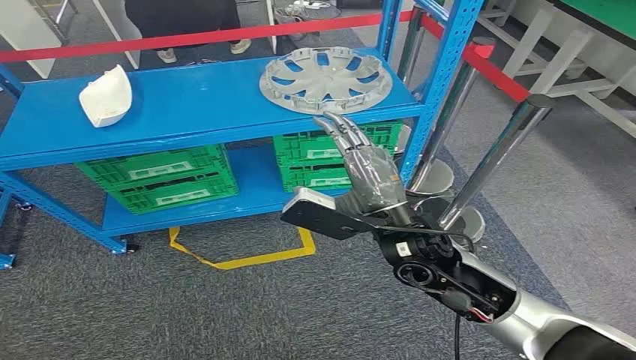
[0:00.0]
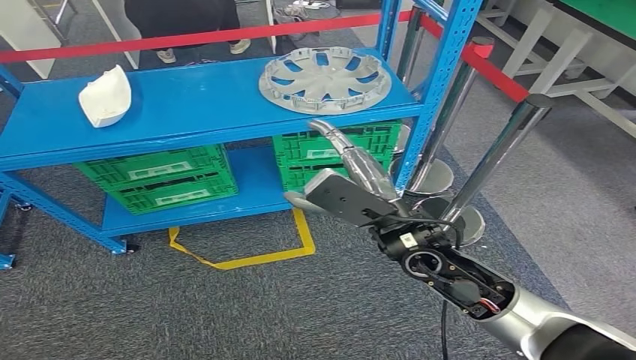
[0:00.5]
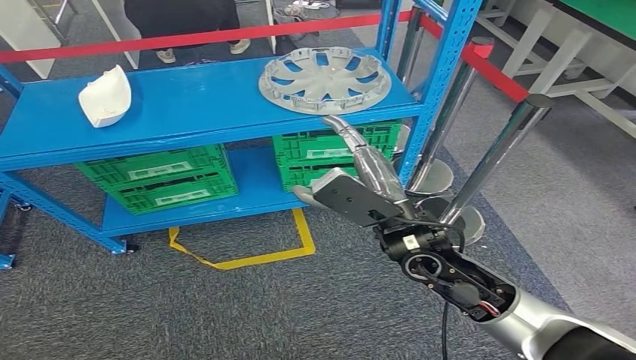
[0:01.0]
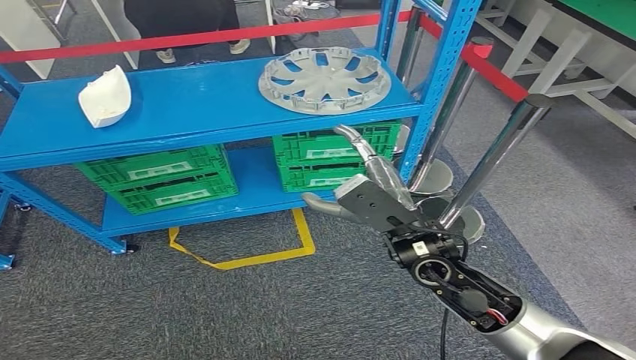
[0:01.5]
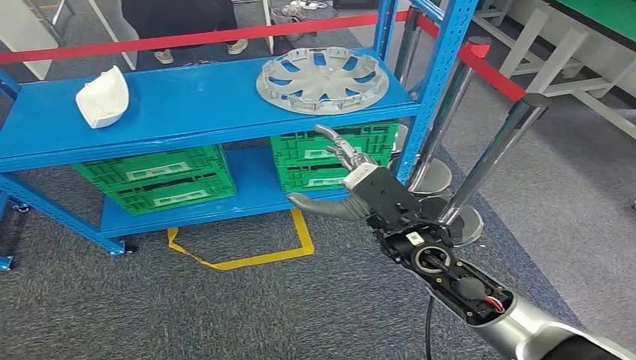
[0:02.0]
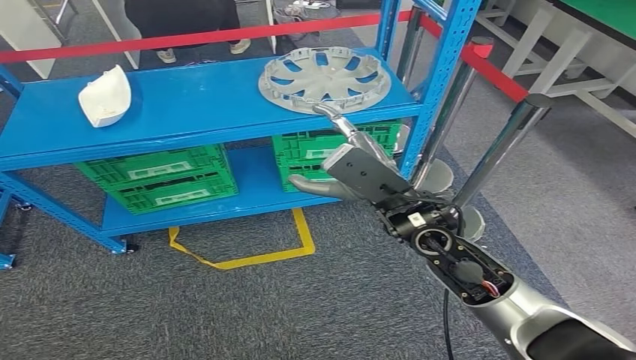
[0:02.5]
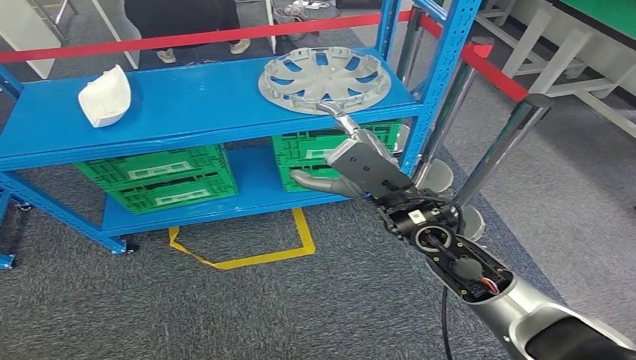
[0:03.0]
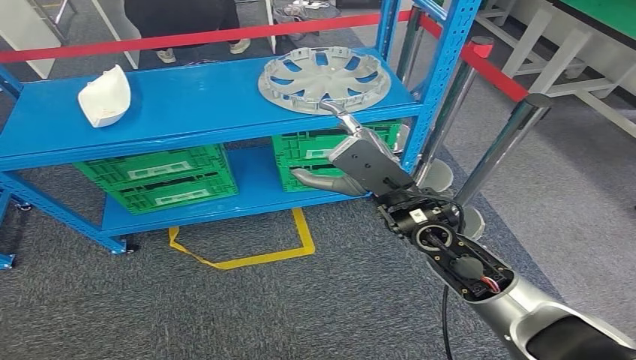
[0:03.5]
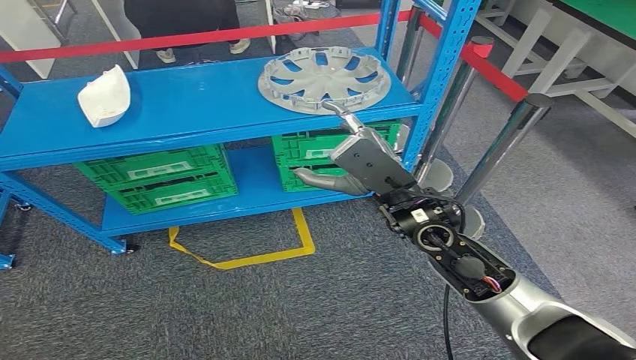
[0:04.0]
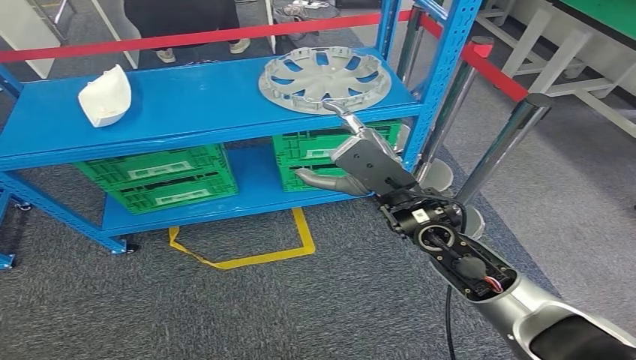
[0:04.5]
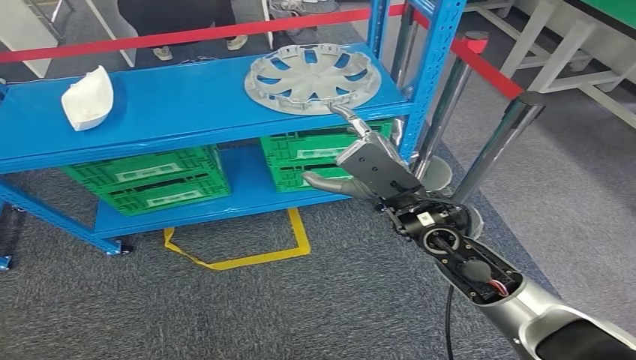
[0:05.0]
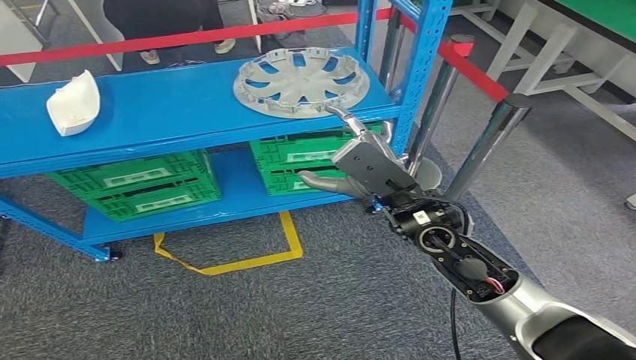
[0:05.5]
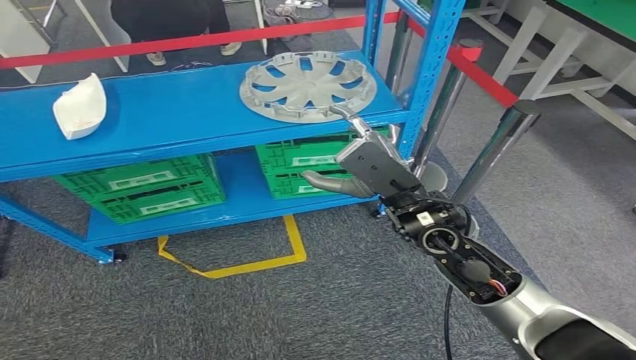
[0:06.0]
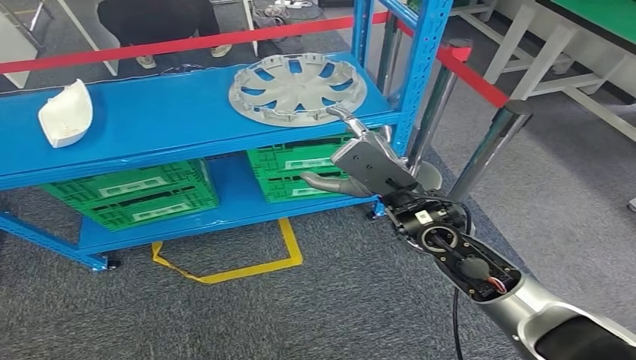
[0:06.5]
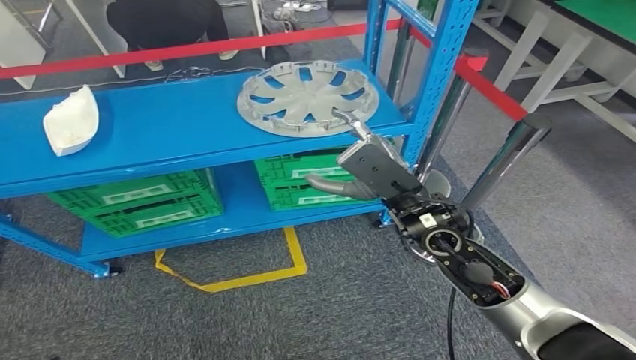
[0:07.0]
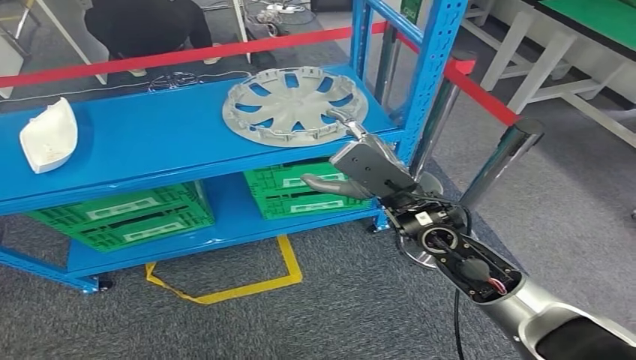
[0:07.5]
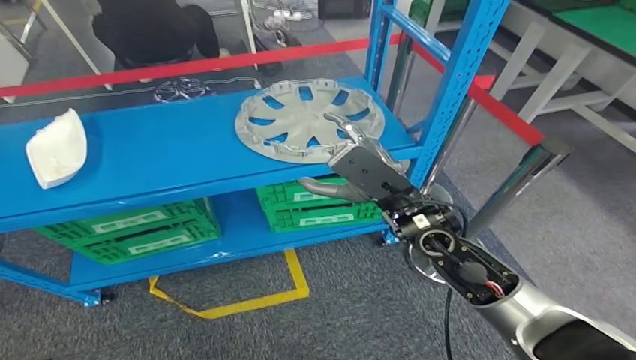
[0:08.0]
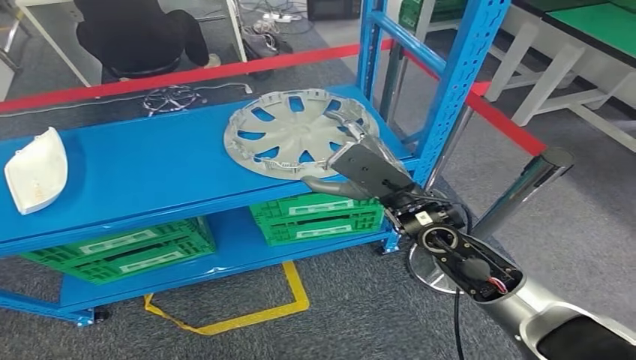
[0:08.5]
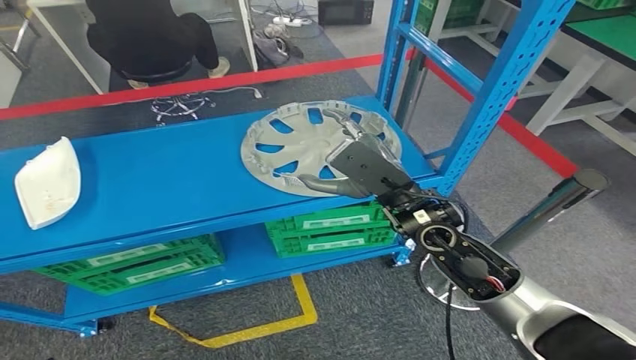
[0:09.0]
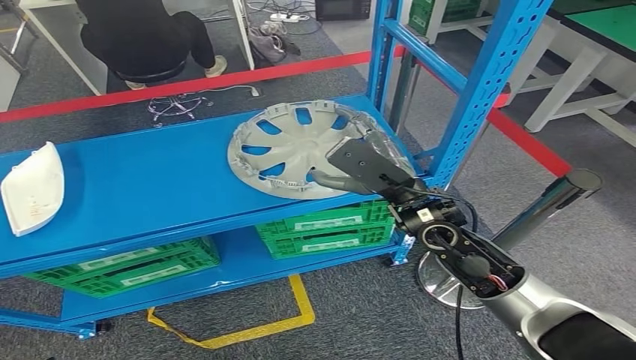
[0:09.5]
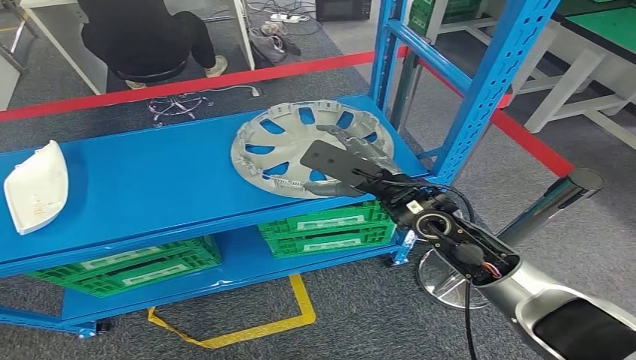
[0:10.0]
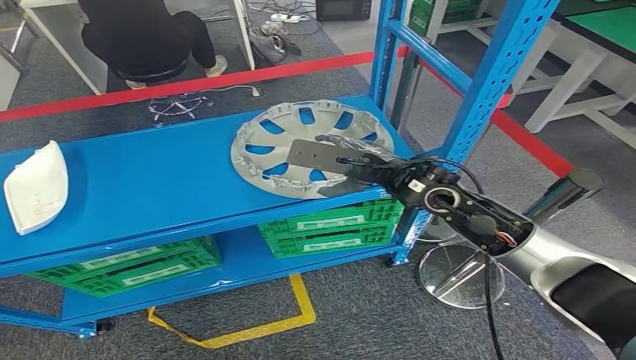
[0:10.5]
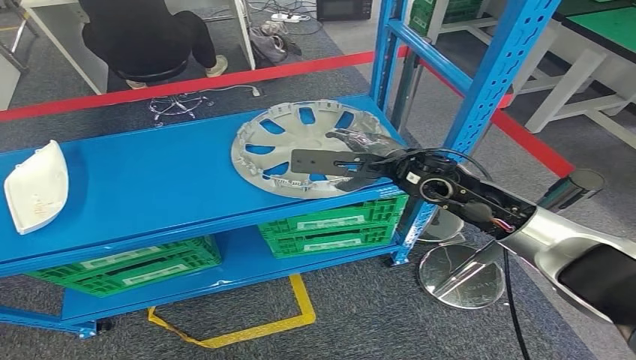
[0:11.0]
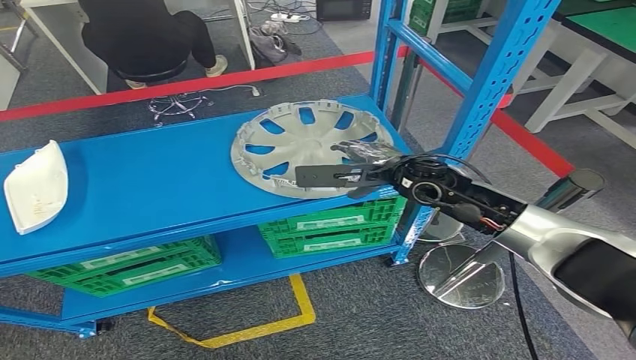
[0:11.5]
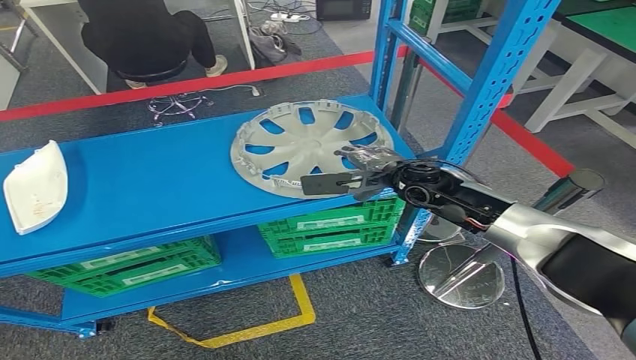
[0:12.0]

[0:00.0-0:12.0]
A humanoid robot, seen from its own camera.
0:02.0 to 0:04.0: The hands move only a little.
0:10.0 to 0:12.0: The right hand moves forward, some 10 cm.

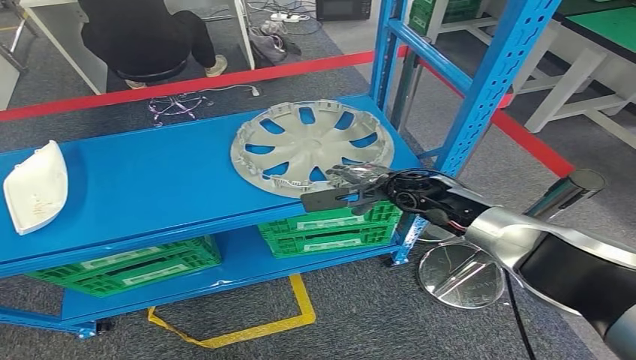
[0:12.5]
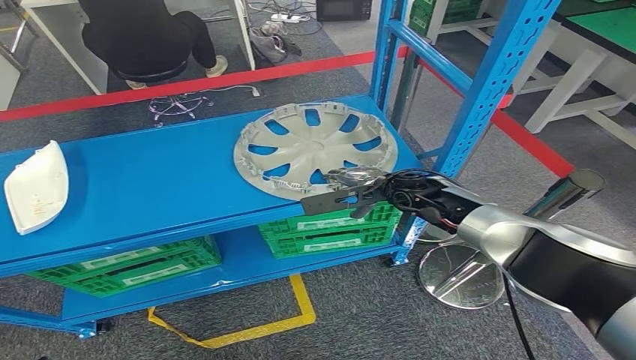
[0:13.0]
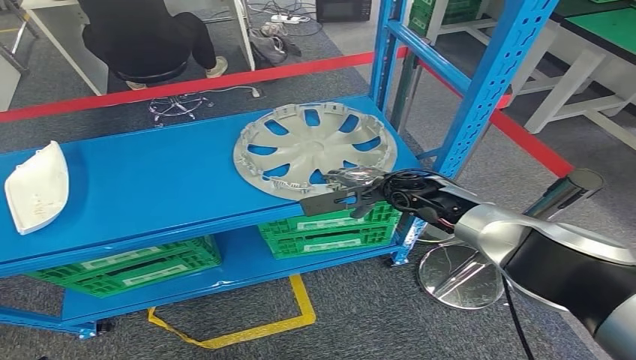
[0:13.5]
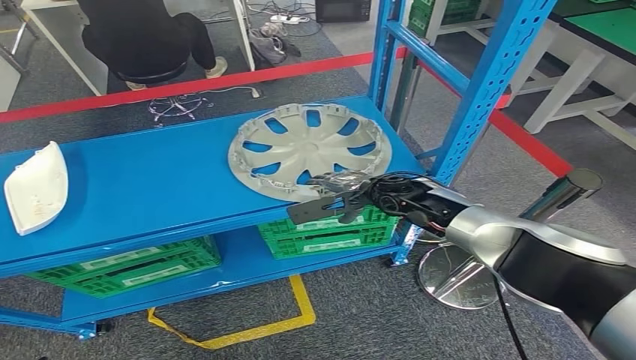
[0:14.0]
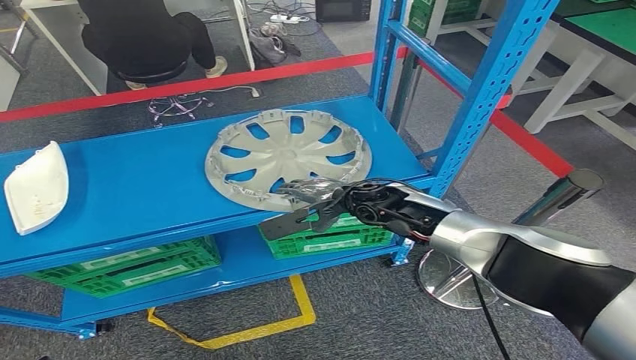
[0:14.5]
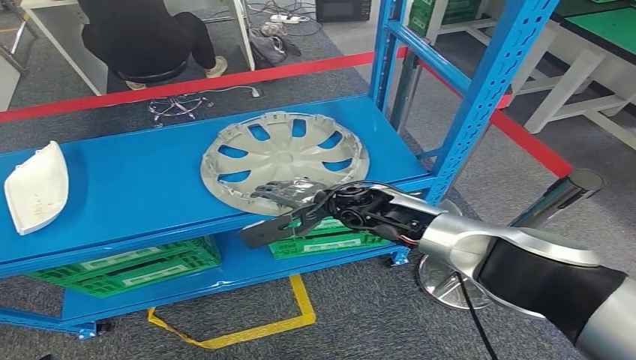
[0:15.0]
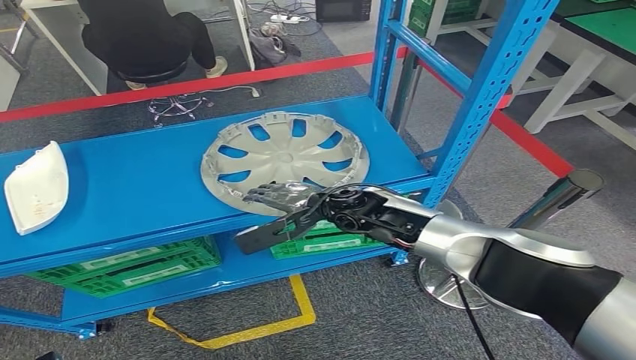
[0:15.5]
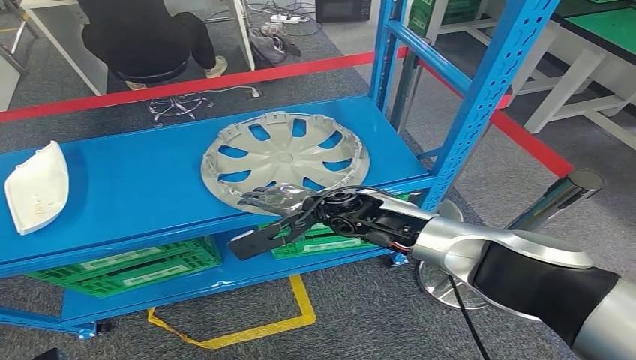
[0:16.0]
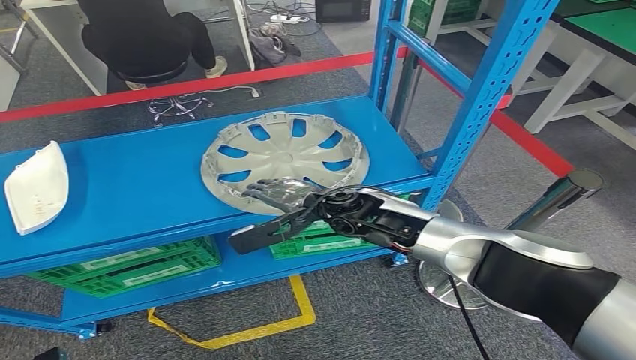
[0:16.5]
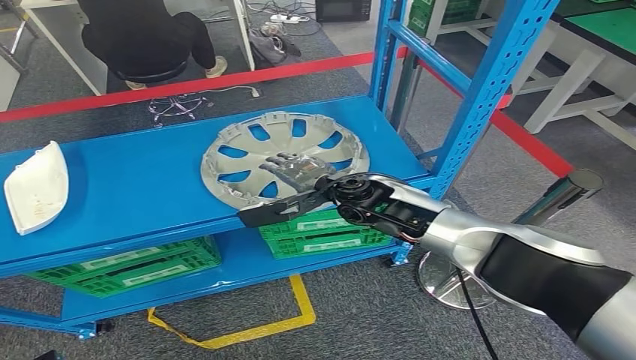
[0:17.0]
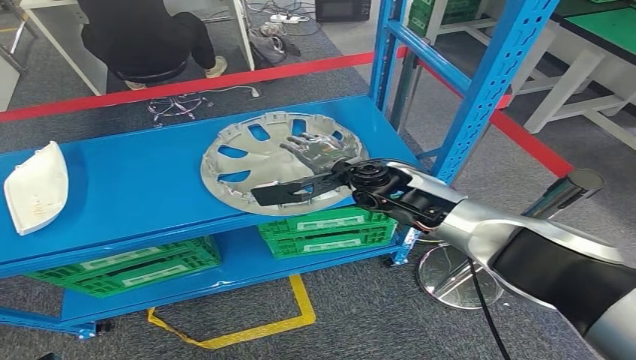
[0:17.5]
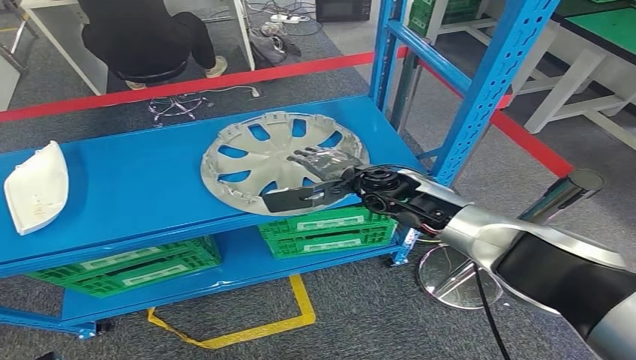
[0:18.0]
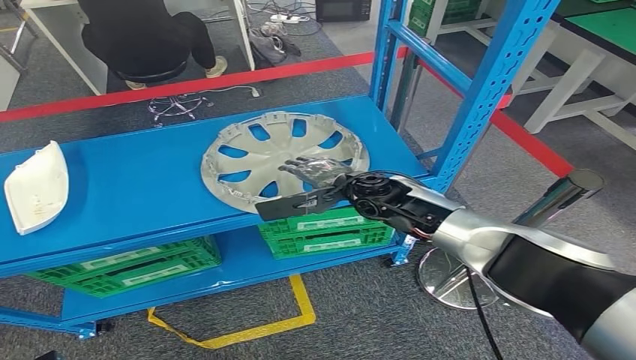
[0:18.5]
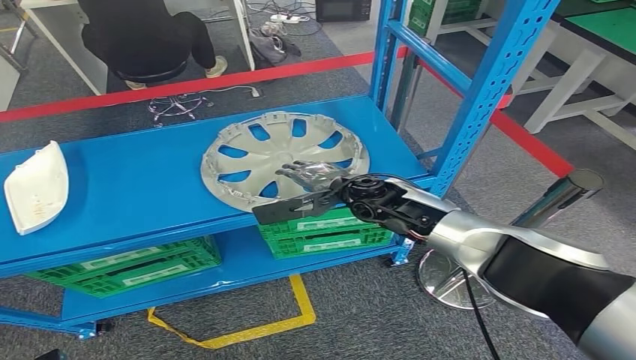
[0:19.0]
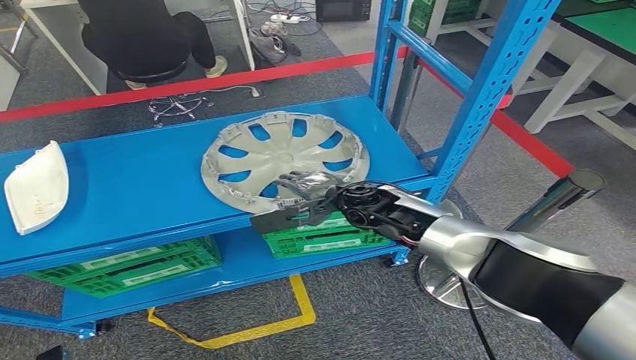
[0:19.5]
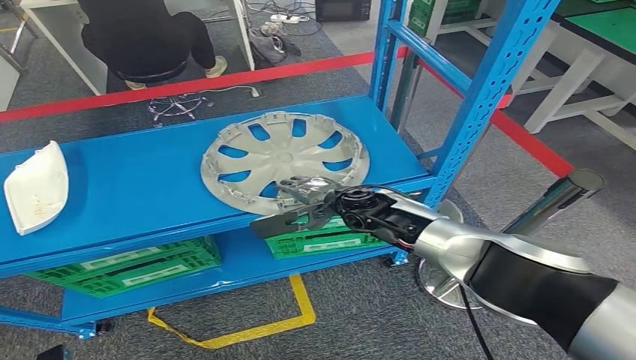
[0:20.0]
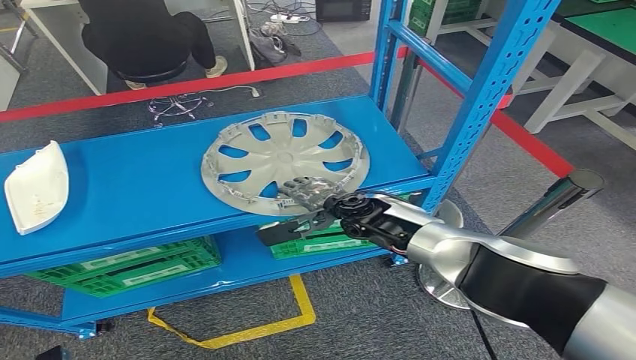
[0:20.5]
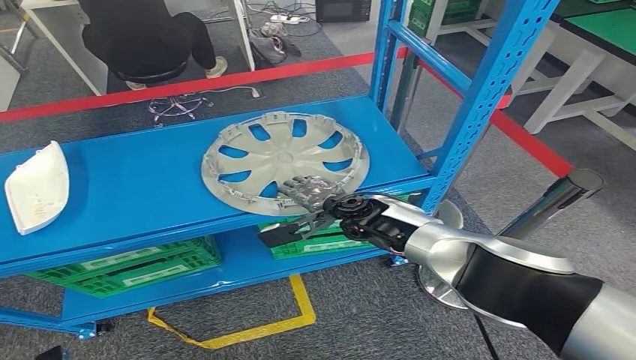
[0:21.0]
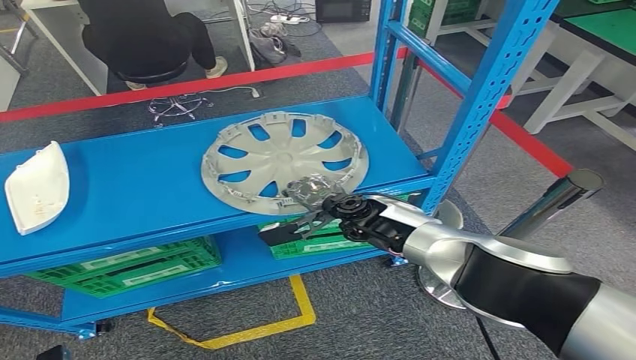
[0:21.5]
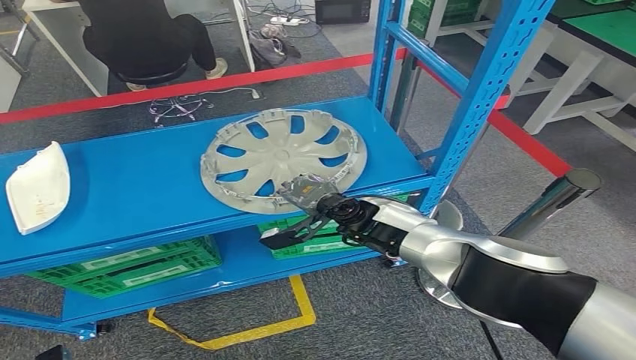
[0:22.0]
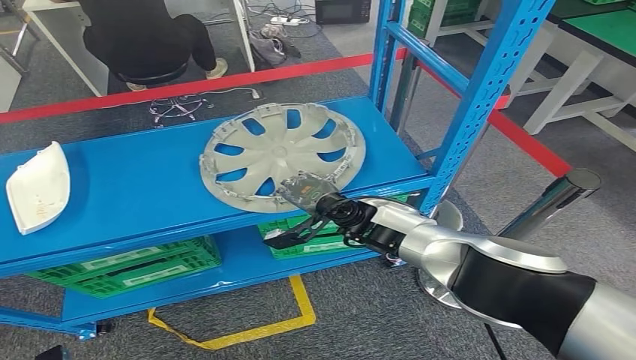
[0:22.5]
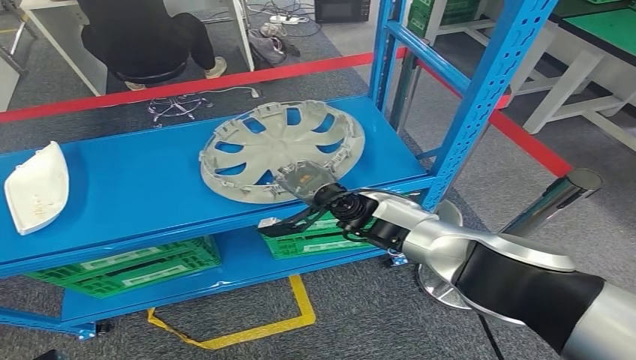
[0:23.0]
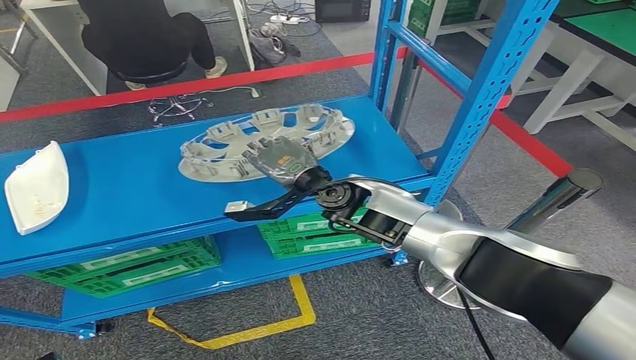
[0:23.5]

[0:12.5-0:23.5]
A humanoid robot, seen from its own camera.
0:12.5 to 0:14.5: The right hand shifts about 10 cm to the left.
0:14.5 to 0:16.0: The right hand changes place by approximately 5 cm.
0:16.0 to 0:18.0: The right hand heads to the right, covering about 5 cm.
0:18.0 to 0:20.0: The right hand changes place by roughly 5 cm.
0:20.0 to 0:21.5: There are only small adjustments of the hands.
0:21.5 to 0:23.5: The right hand goes roughly 10 cm upward.
